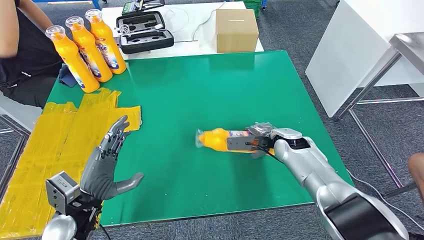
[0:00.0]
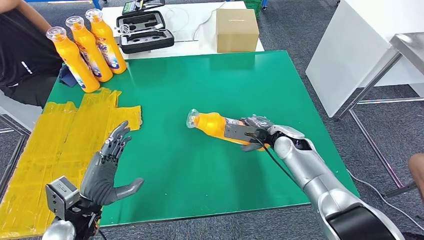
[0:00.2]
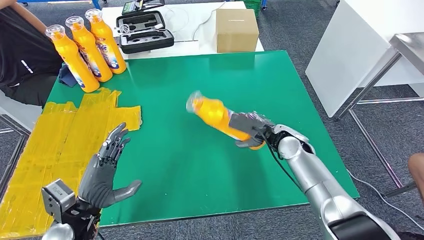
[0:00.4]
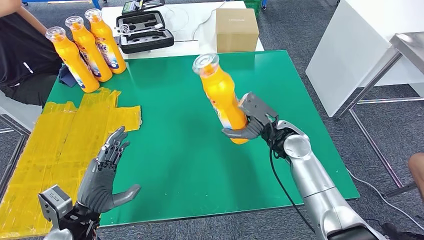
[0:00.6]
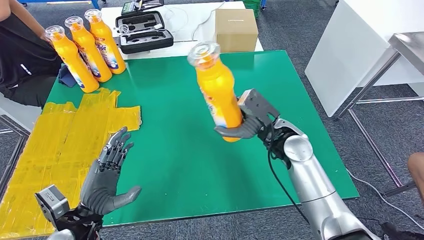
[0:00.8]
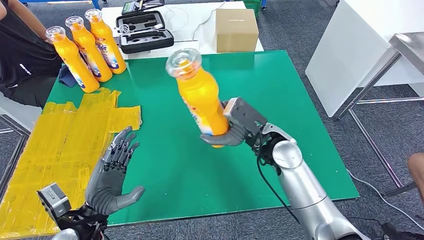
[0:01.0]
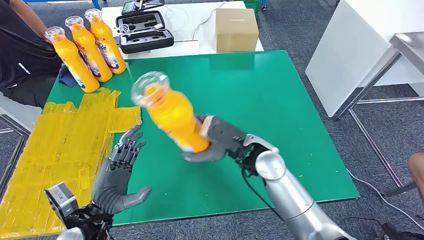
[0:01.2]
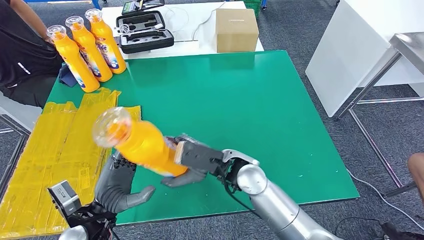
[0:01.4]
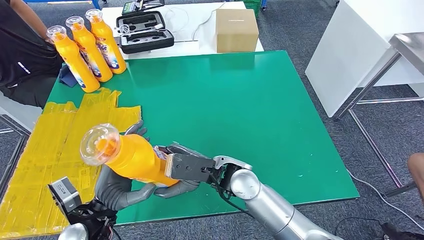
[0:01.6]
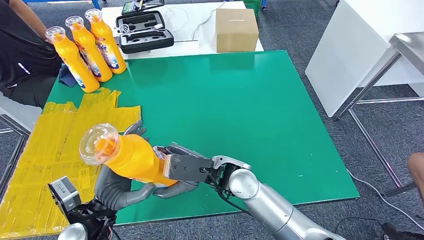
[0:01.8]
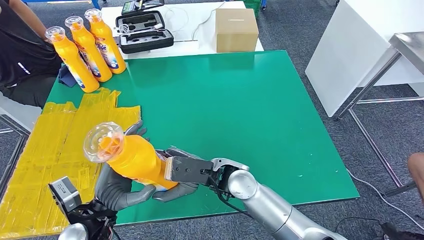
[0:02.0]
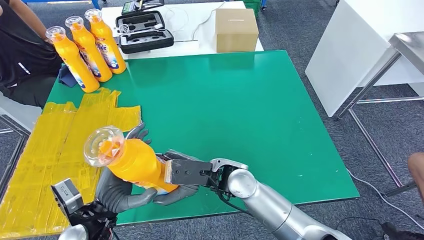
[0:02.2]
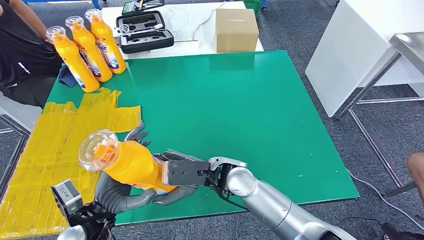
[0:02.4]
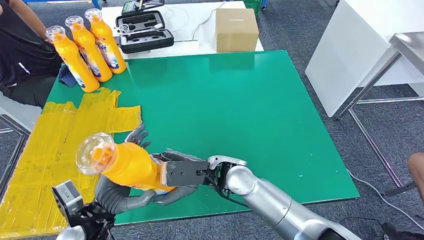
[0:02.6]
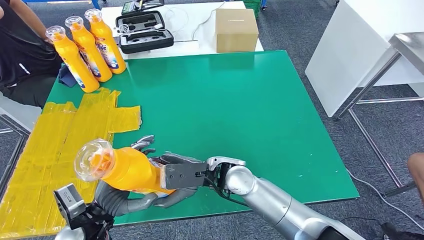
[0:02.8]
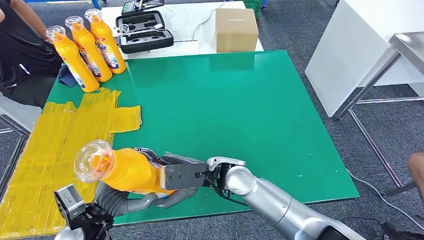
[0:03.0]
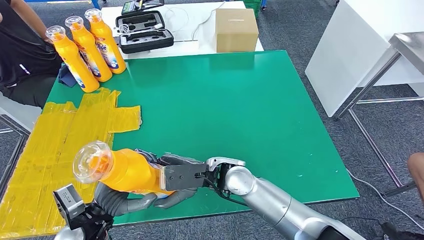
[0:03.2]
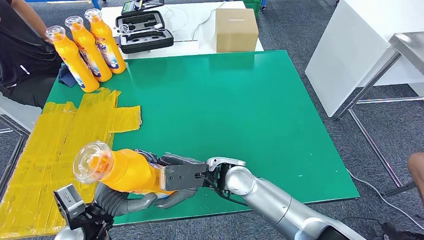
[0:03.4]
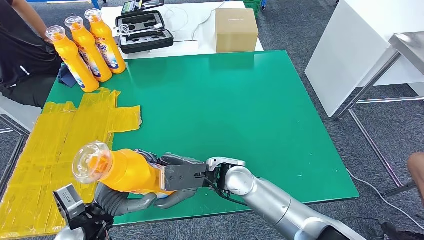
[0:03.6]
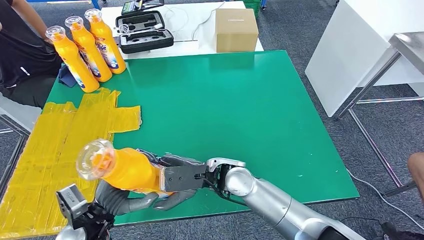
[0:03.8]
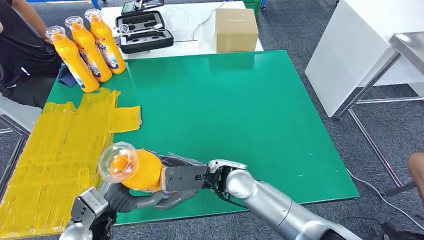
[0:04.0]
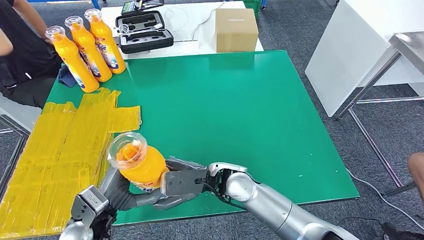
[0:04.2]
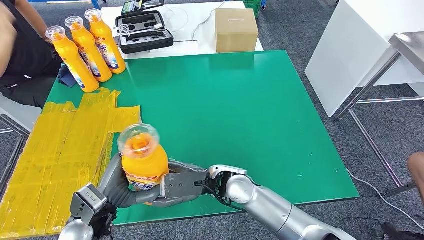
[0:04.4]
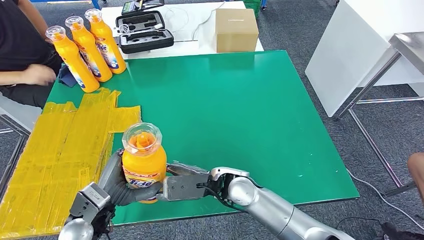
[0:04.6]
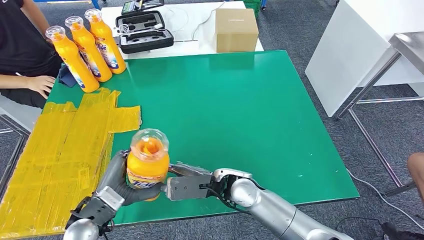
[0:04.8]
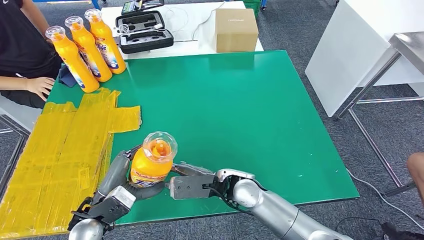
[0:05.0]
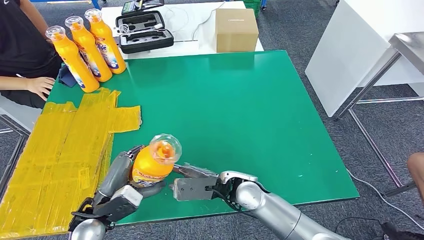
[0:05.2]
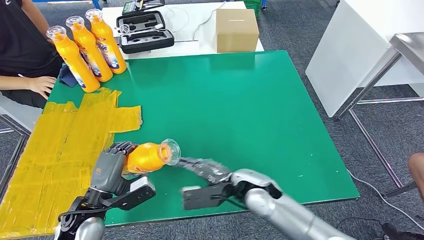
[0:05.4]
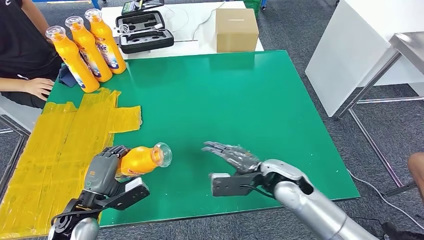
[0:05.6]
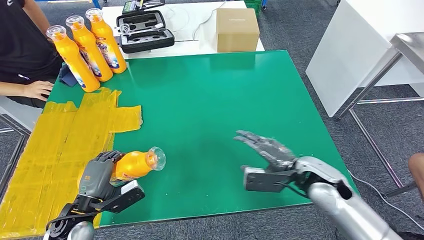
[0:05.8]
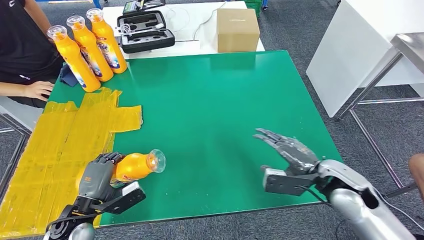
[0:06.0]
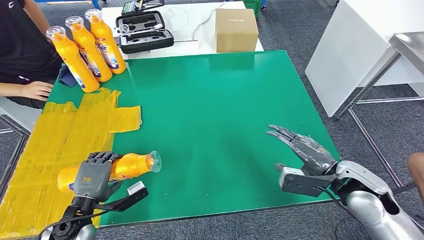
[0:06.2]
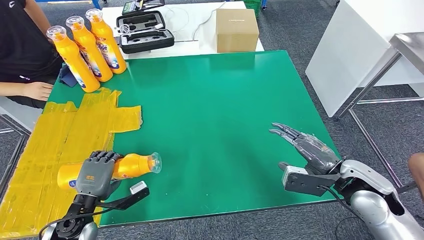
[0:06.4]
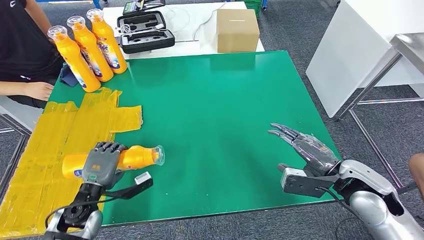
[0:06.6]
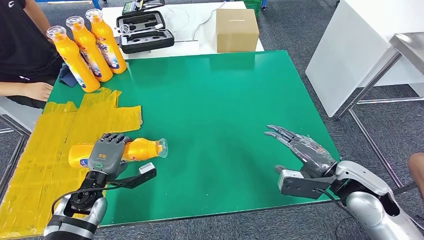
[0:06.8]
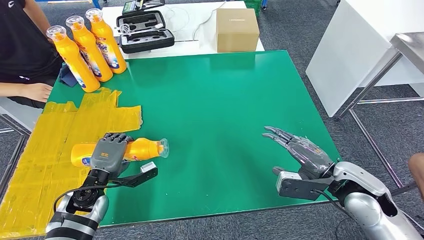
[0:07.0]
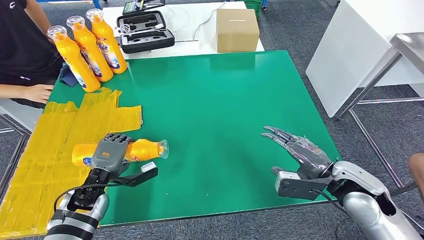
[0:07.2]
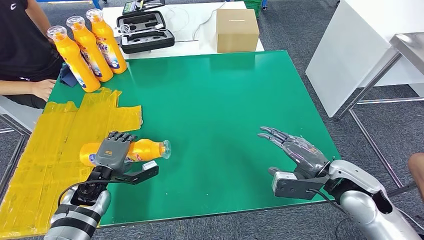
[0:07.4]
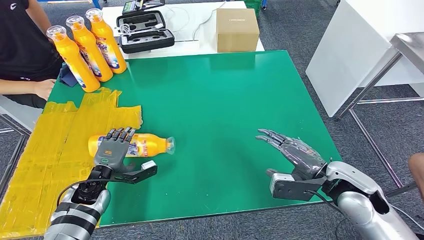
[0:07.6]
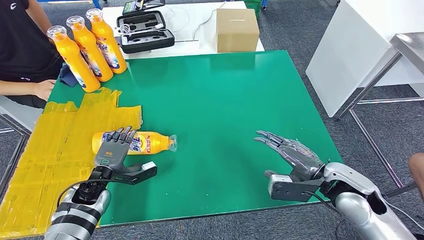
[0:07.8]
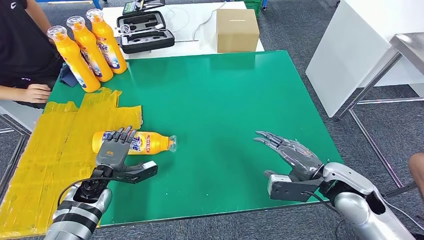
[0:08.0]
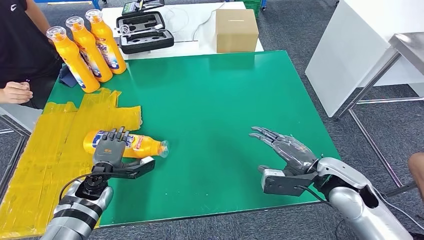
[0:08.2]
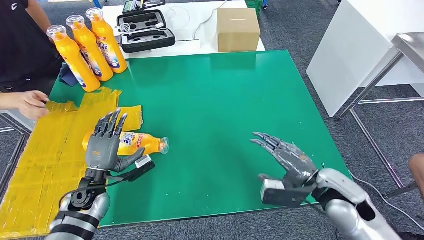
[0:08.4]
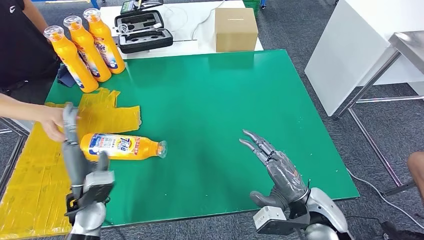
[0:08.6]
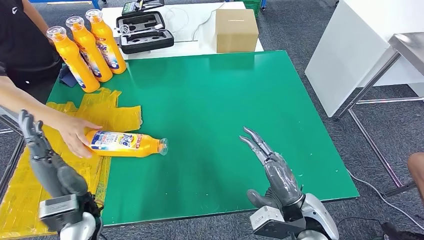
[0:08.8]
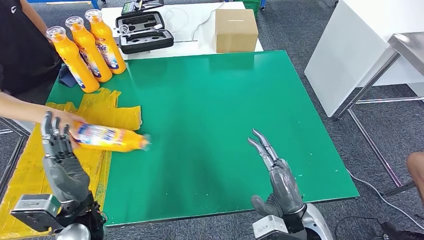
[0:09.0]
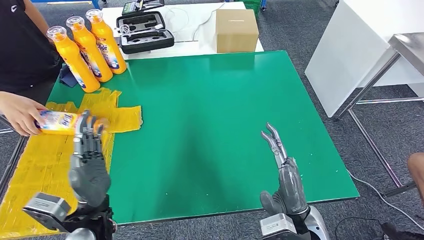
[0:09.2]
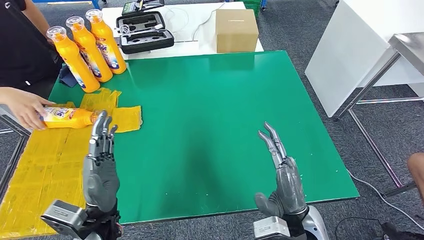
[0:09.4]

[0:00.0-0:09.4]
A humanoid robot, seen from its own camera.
Step, 0:00.0 to 0:02.2: Pick up the fast-moving consumer goods bottle from the table.
Step, 0:02.4 to 0:09.4: Flip the fast-moving consumer goods bottle to the front side.
0:01.6 to 0:03.2: The hands stay close to where they were, moving slightly.
0:04.8 to 0:06.2: The left hand travels to the left and downward by about 10 cm, while the right hand moves to the right, approximately 25 cm.
0:06.2 to 0:07.8: The left hand travels forward by some 10 cm.
